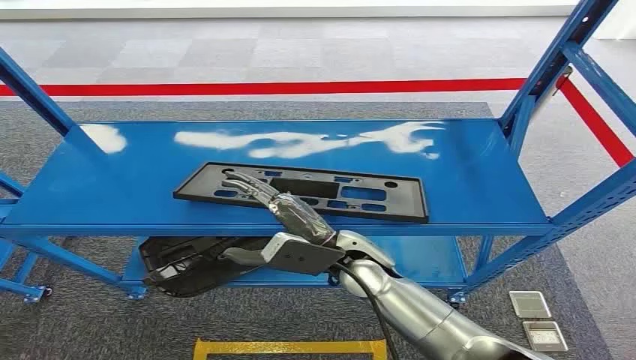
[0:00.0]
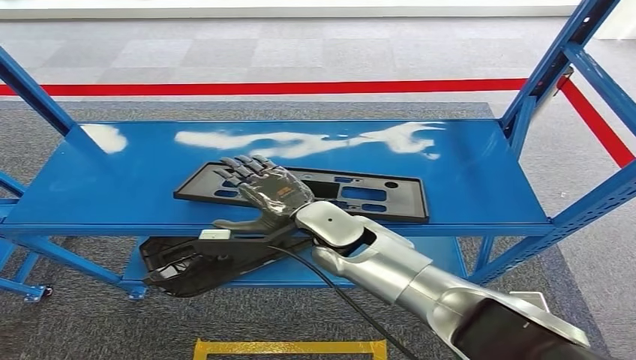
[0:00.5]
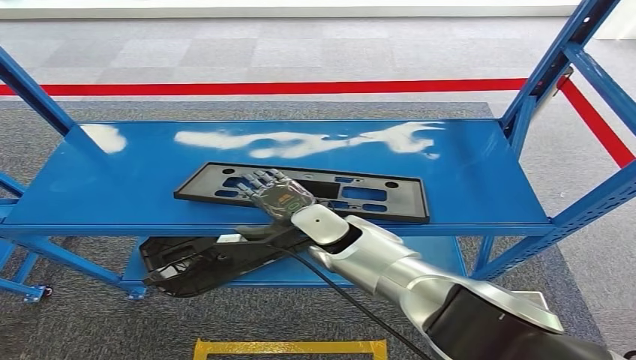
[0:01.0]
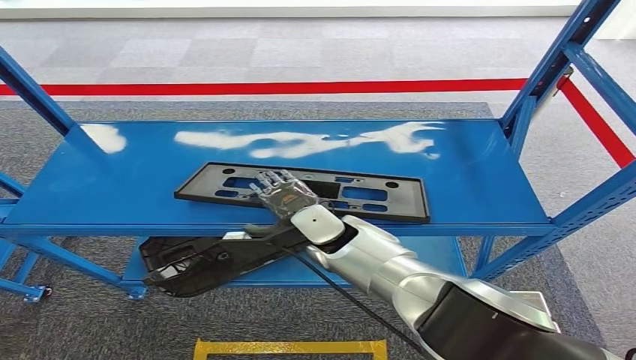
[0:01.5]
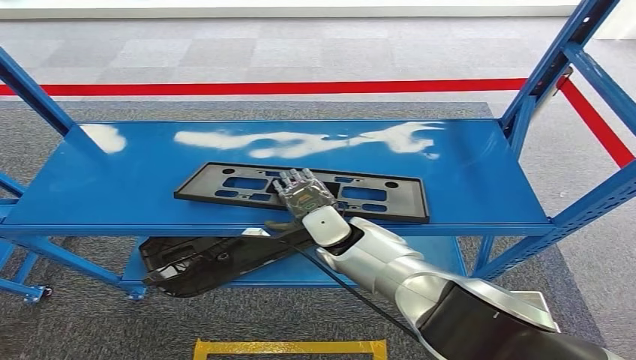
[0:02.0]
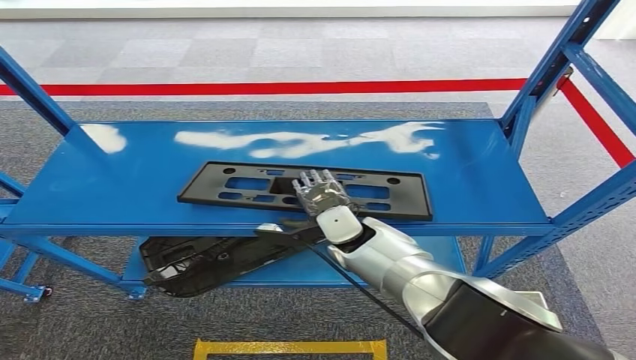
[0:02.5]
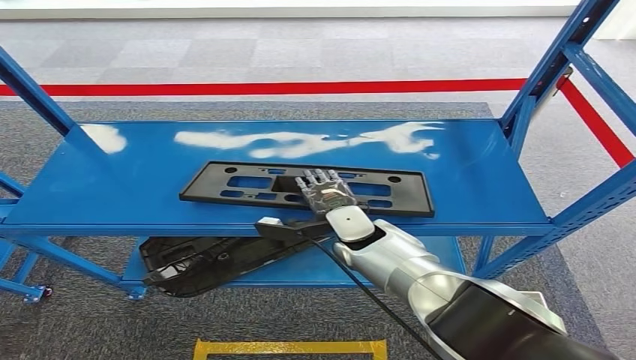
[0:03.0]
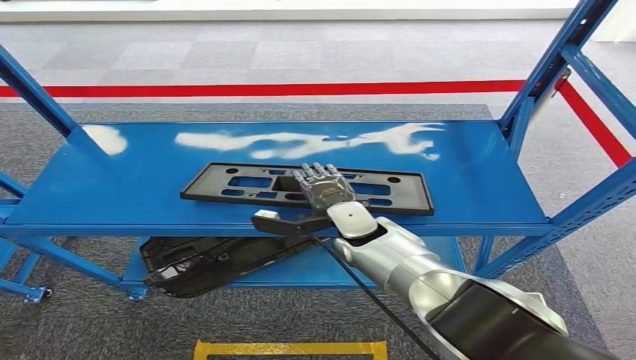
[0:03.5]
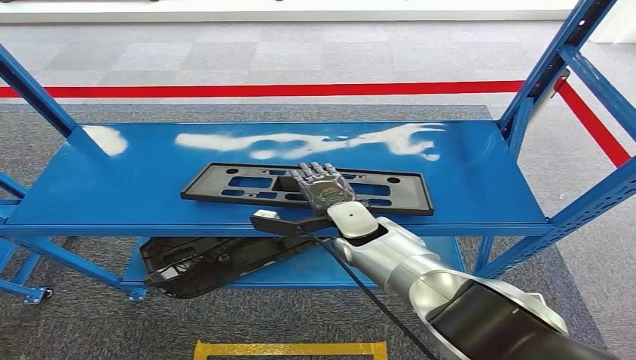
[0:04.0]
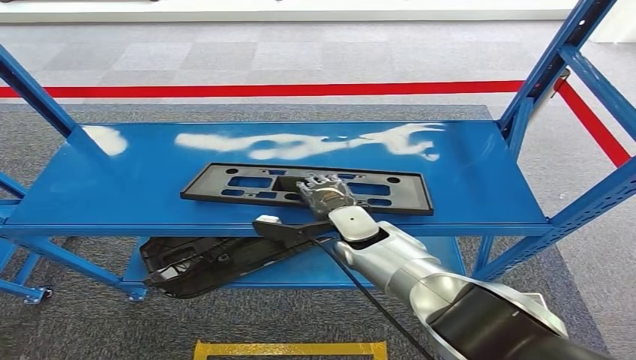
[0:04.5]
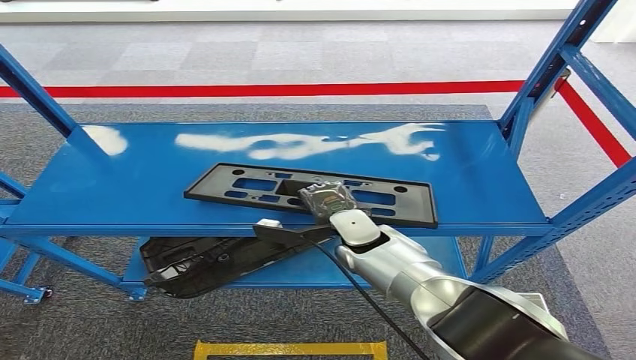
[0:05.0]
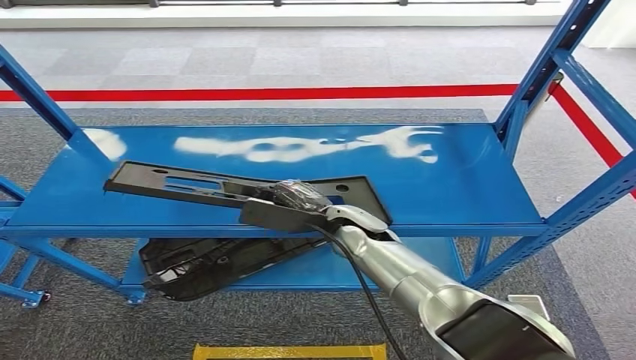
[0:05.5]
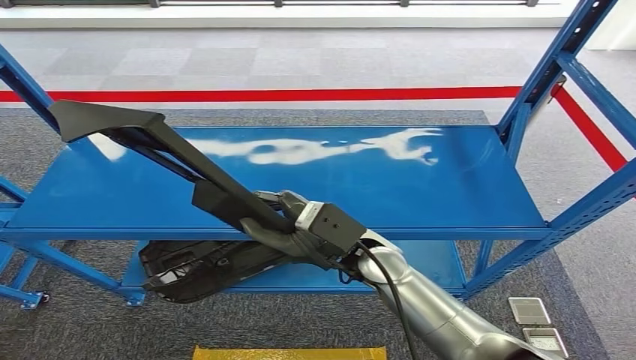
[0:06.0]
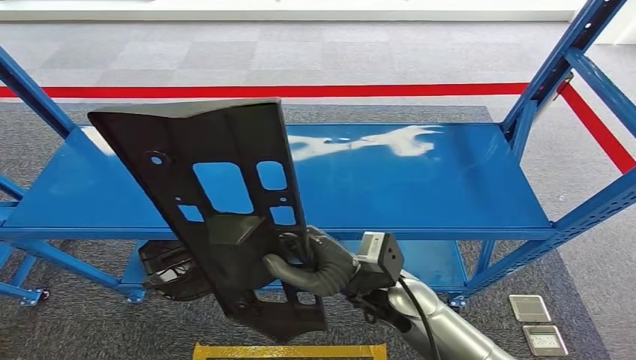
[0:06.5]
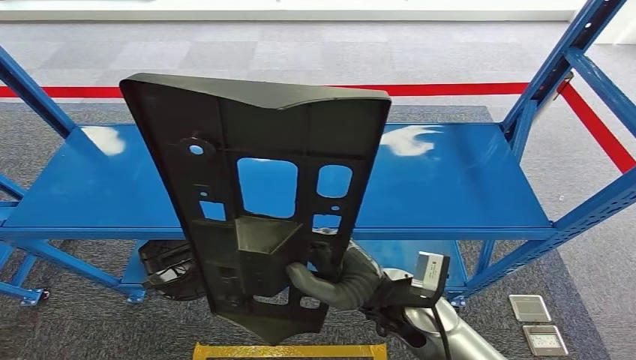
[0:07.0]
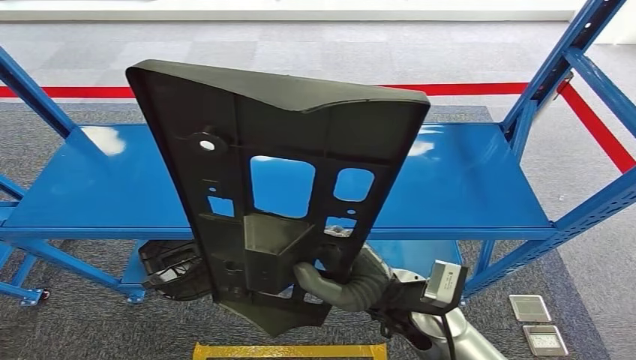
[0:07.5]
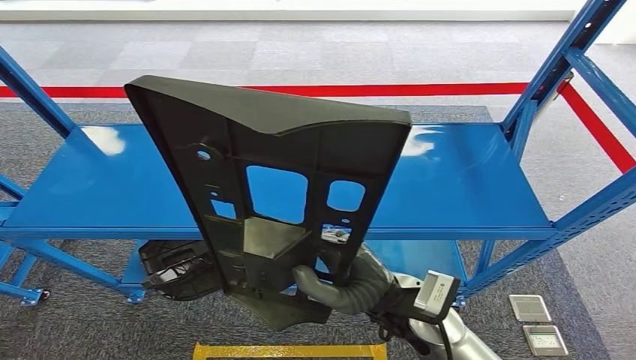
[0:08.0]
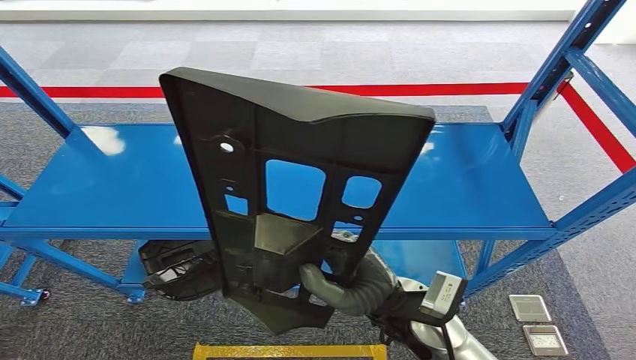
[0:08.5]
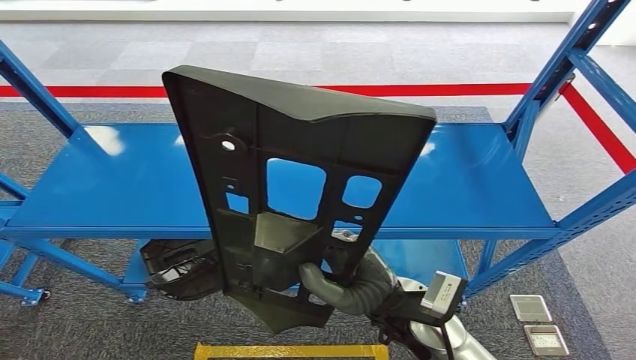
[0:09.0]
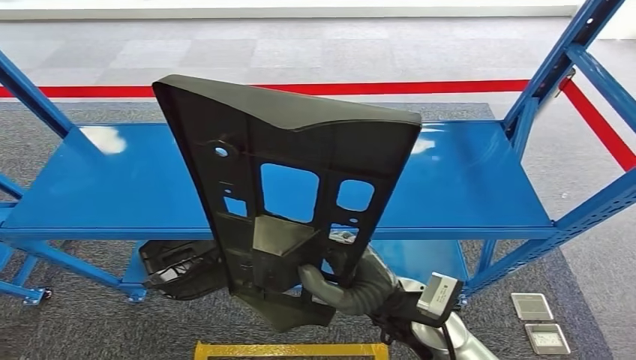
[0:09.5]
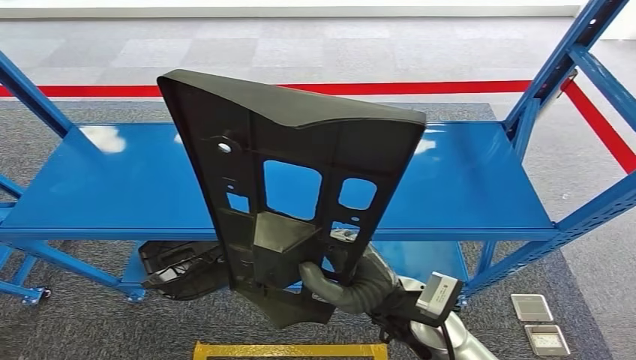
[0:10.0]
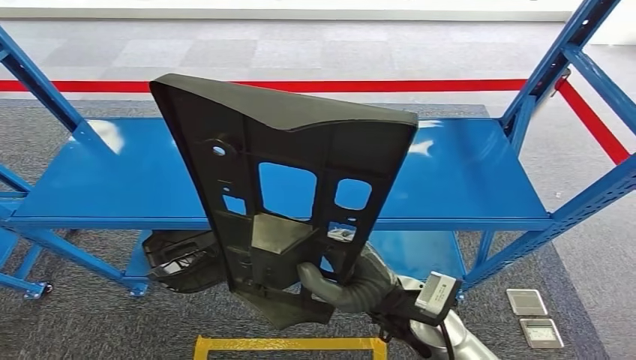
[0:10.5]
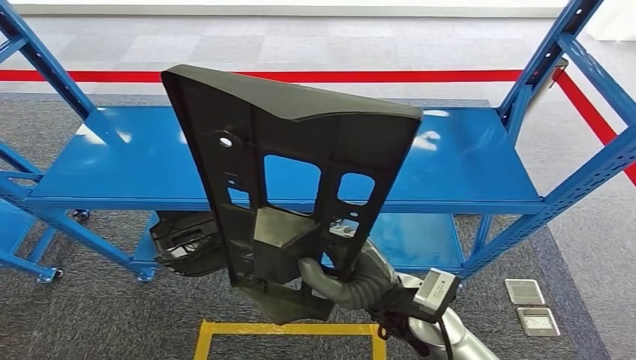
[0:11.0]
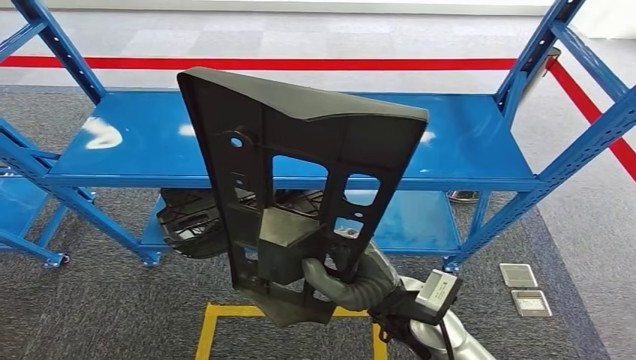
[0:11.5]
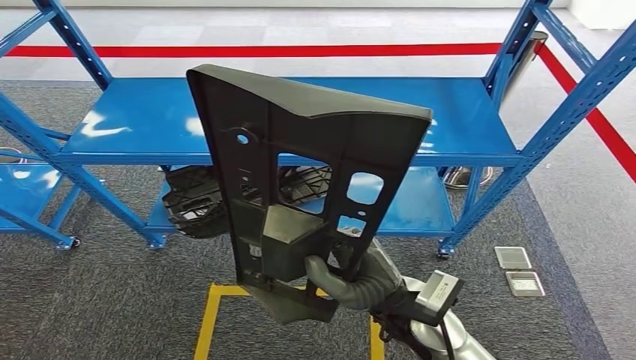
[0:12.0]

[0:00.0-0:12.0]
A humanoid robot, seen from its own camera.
Step, 0:00.0 to 0:07.0: Pick up the large material from the shelf.
0:02.0 to 0:04.0: There are only small adjustments of the hands.
0:08.0 to 0:10.0: Neither hand changes place.

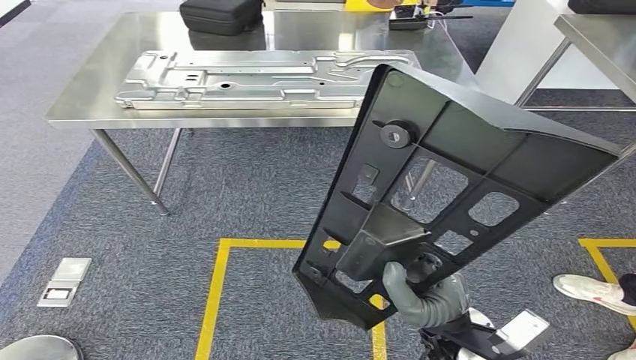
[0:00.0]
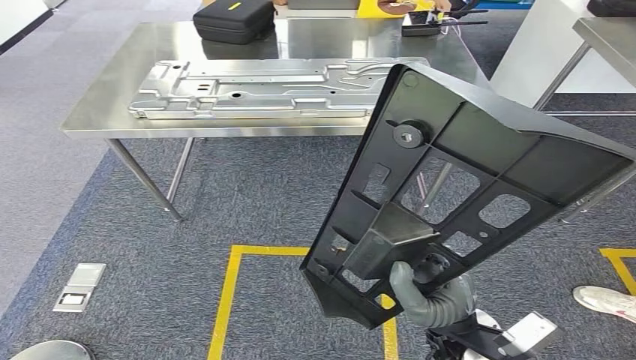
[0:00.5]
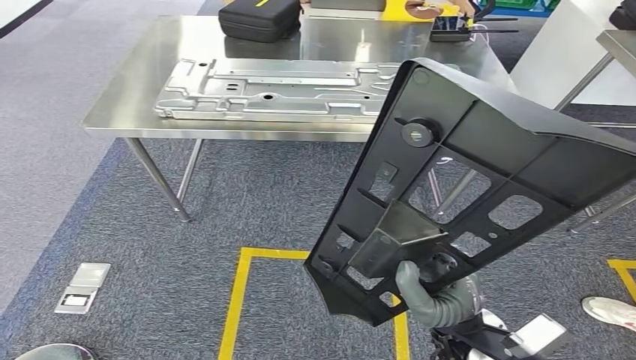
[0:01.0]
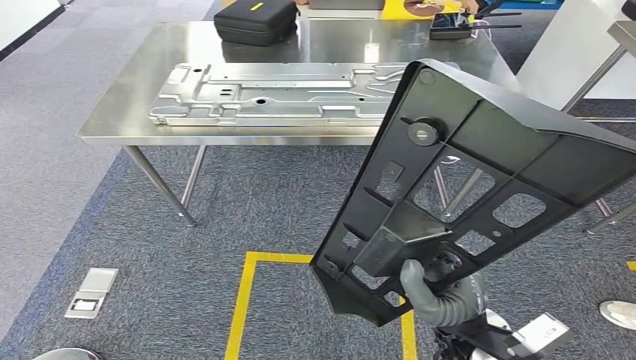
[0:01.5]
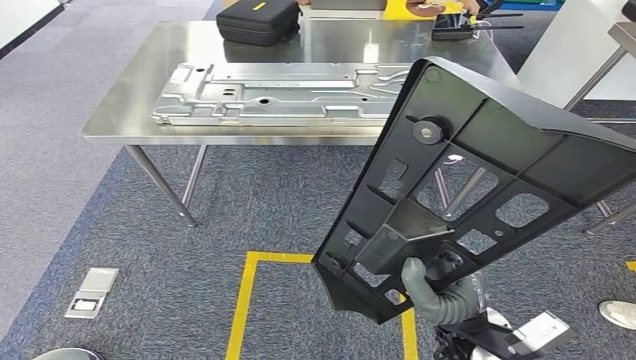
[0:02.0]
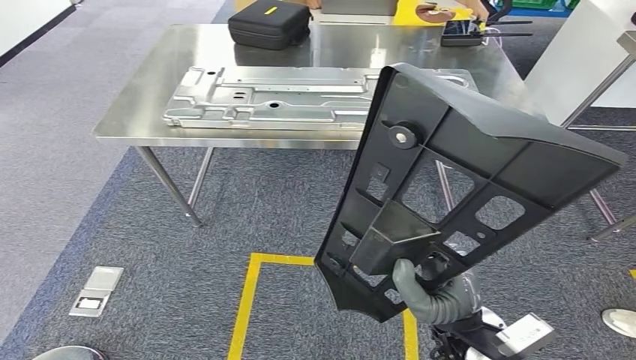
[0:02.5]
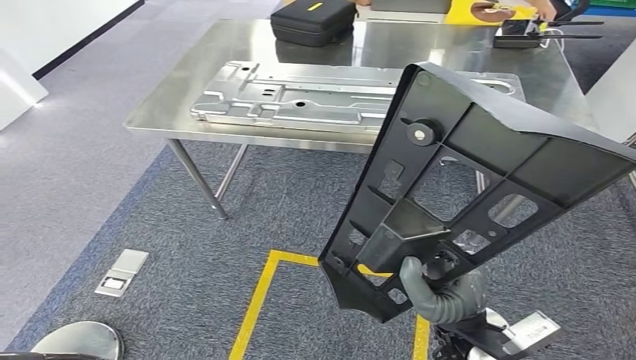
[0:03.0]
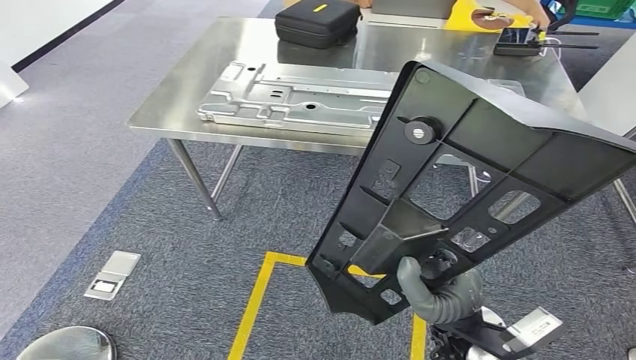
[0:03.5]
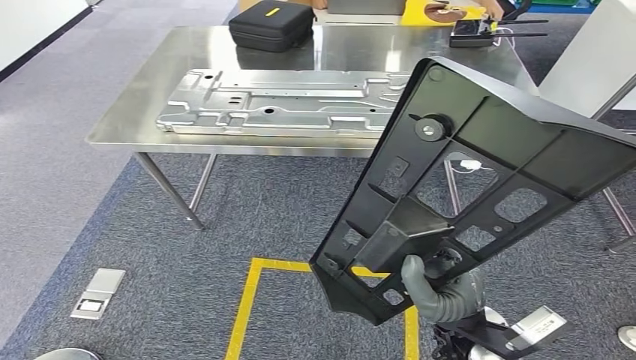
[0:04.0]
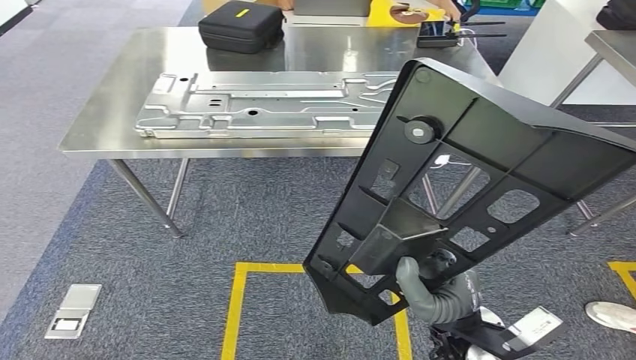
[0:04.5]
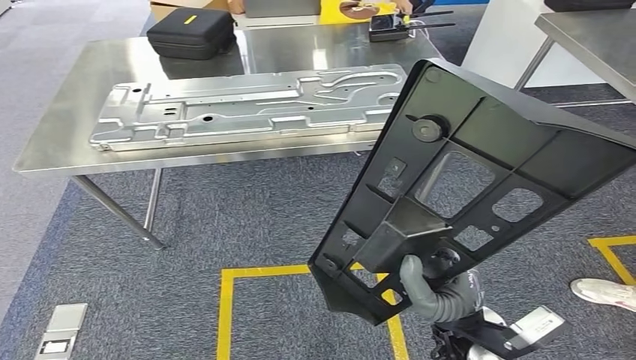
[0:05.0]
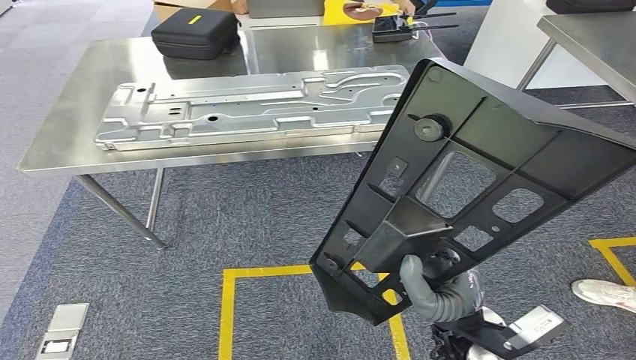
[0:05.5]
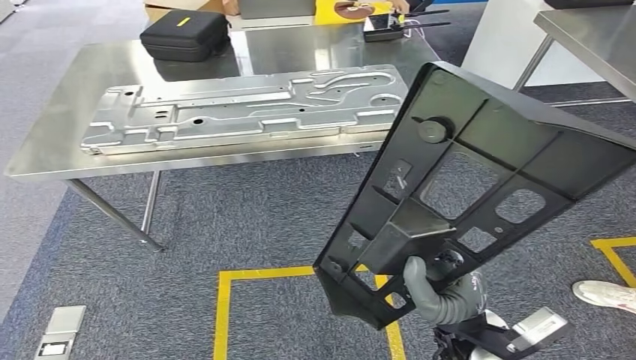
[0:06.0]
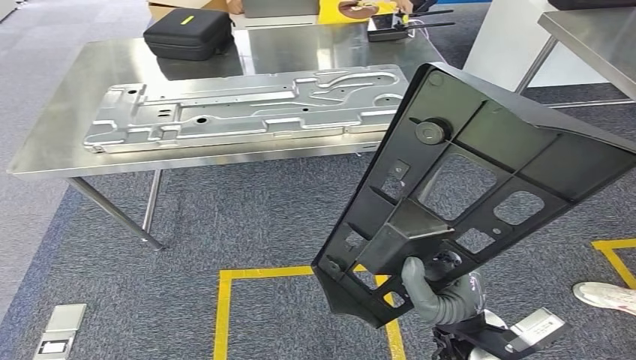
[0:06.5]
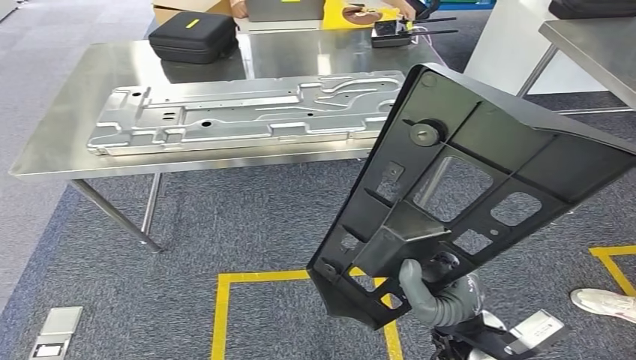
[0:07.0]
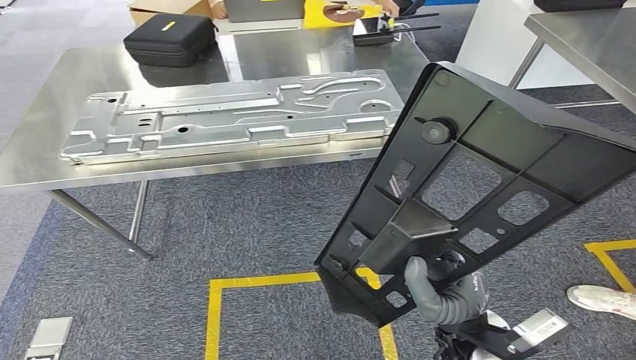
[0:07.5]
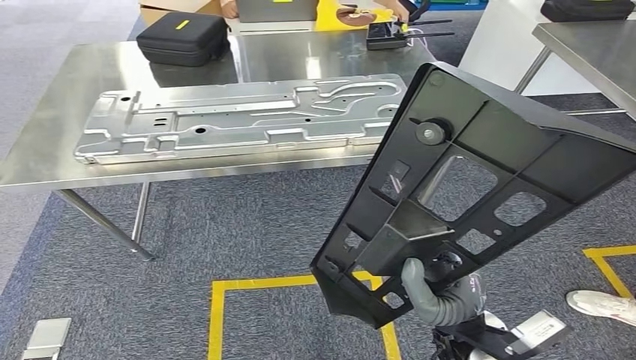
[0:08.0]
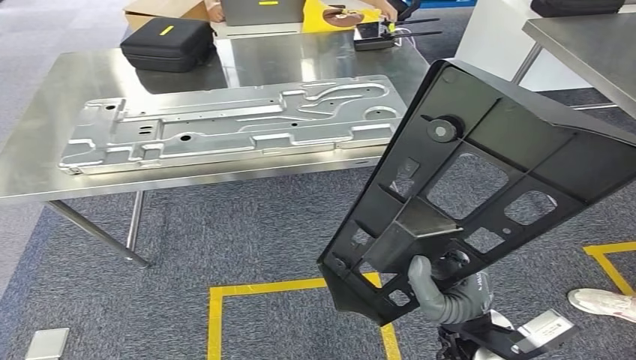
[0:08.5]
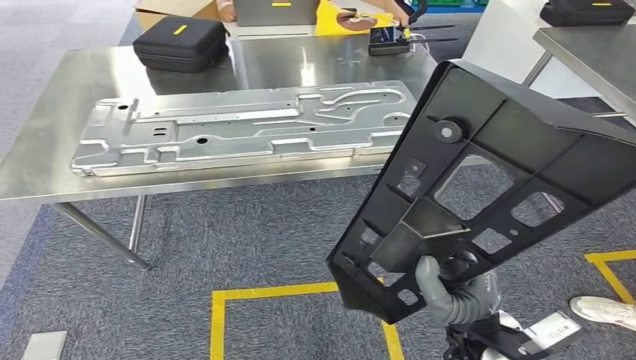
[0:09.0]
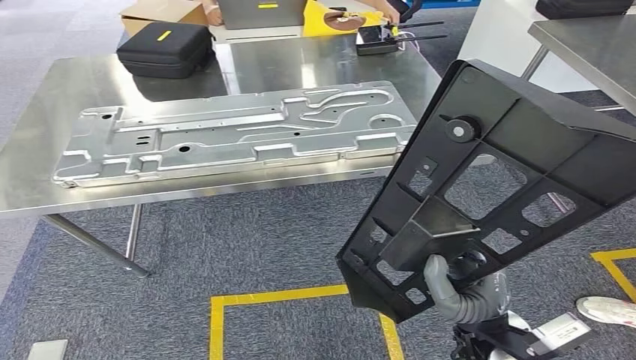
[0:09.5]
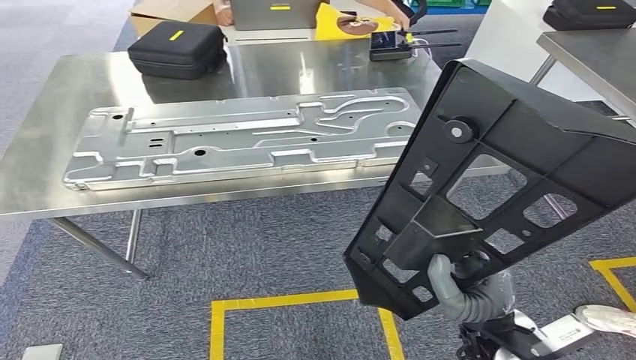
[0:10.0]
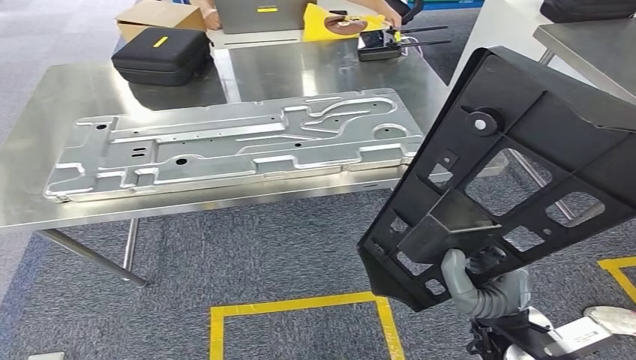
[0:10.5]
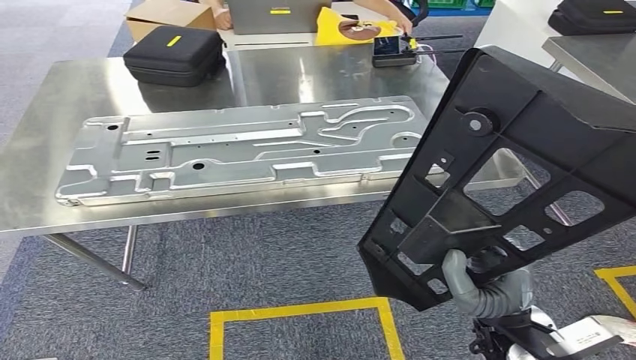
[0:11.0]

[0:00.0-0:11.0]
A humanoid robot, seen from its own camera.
Step, 0:00.0 to 0:10.5: Move the large material to the workbench.
